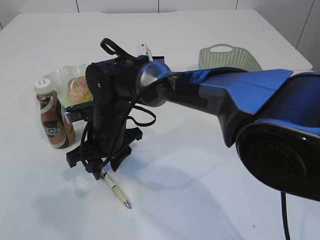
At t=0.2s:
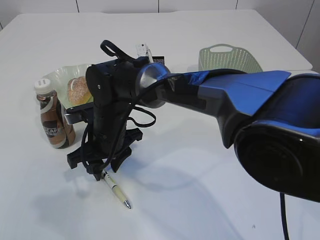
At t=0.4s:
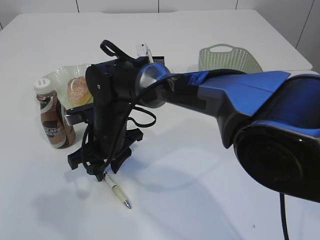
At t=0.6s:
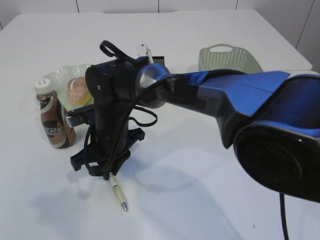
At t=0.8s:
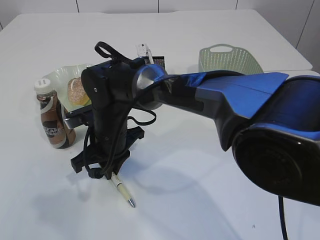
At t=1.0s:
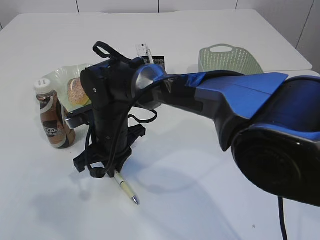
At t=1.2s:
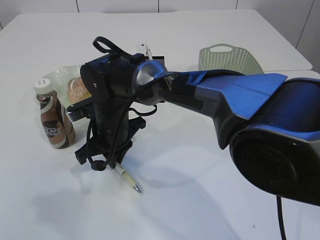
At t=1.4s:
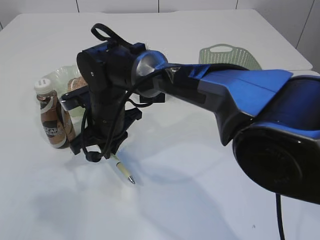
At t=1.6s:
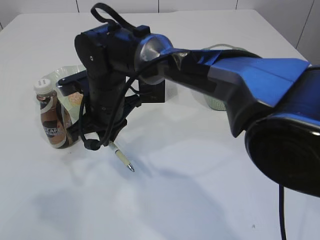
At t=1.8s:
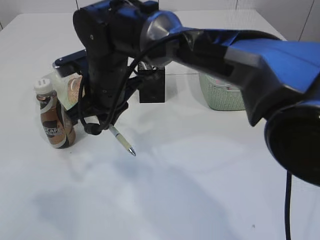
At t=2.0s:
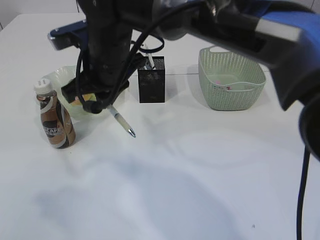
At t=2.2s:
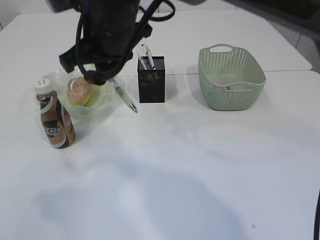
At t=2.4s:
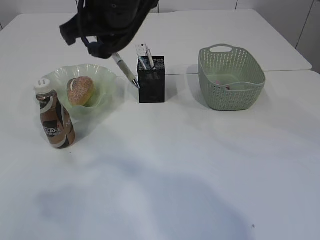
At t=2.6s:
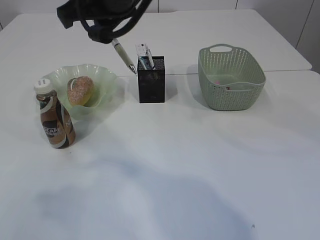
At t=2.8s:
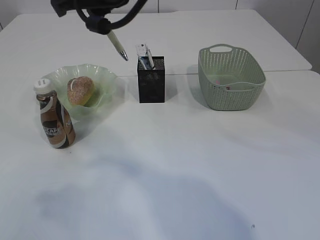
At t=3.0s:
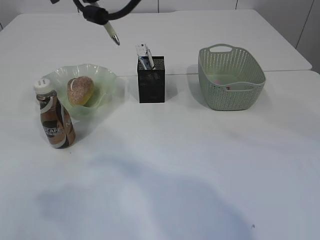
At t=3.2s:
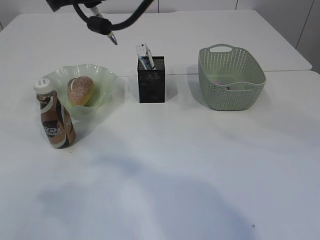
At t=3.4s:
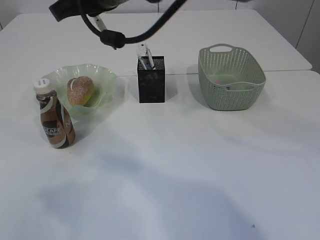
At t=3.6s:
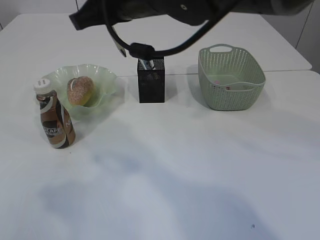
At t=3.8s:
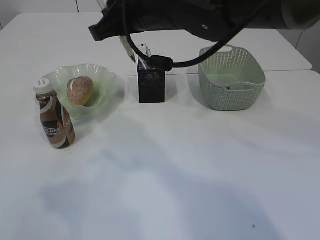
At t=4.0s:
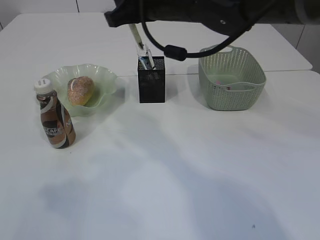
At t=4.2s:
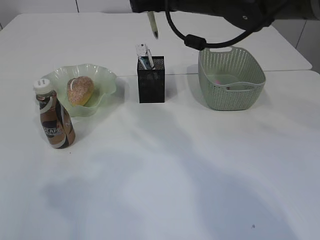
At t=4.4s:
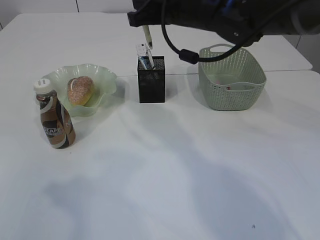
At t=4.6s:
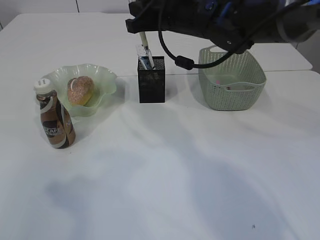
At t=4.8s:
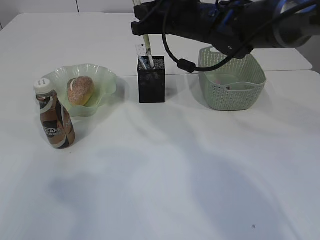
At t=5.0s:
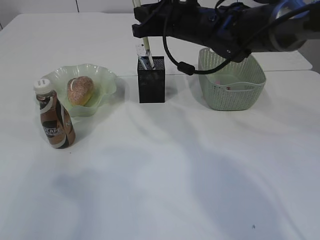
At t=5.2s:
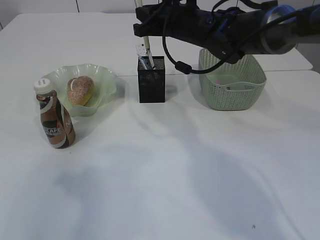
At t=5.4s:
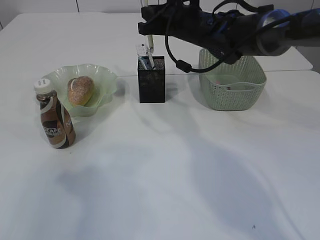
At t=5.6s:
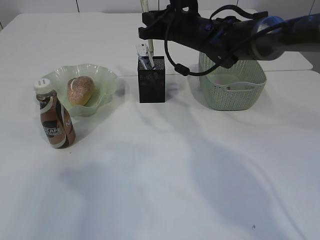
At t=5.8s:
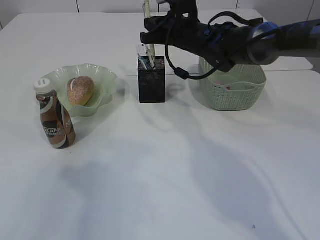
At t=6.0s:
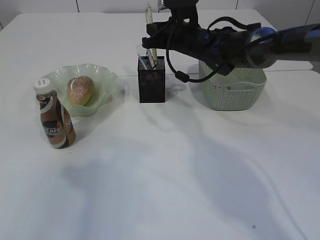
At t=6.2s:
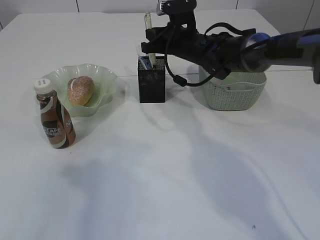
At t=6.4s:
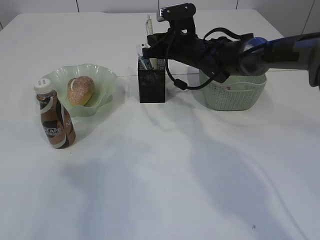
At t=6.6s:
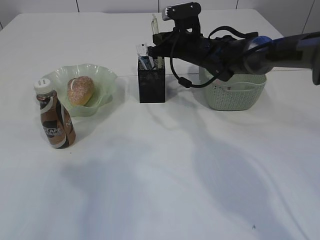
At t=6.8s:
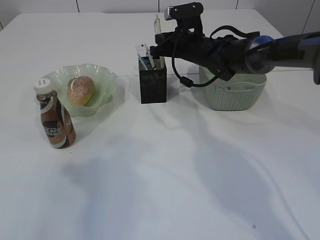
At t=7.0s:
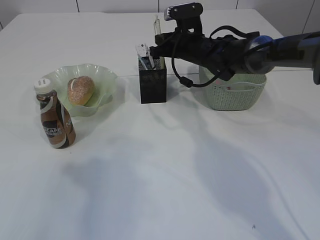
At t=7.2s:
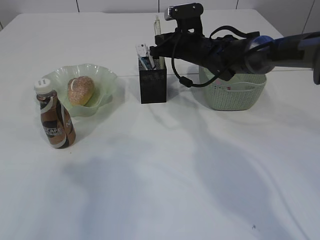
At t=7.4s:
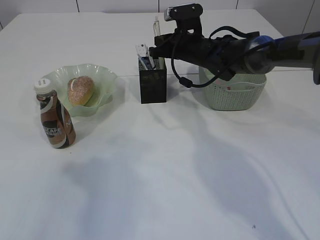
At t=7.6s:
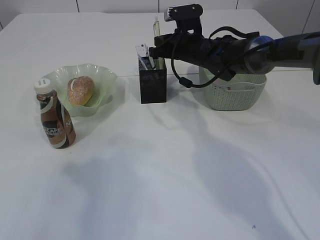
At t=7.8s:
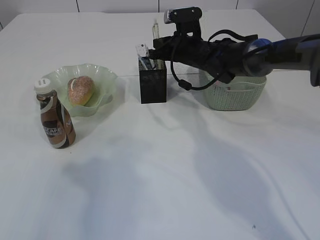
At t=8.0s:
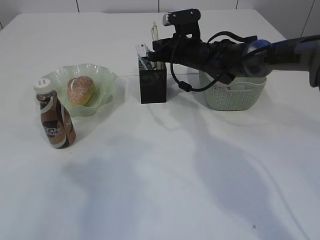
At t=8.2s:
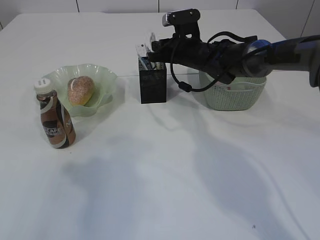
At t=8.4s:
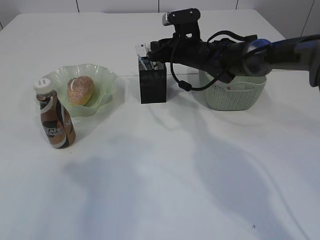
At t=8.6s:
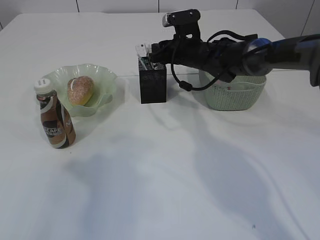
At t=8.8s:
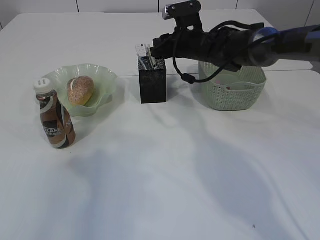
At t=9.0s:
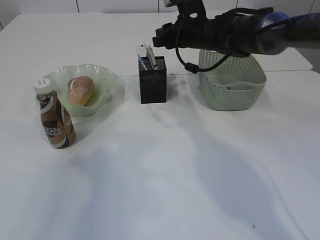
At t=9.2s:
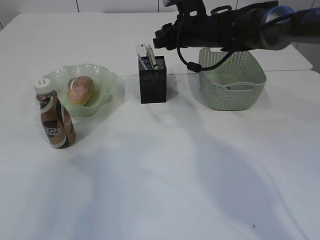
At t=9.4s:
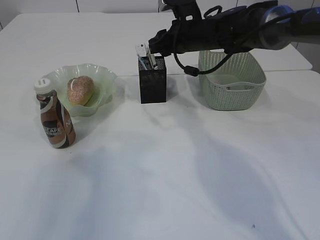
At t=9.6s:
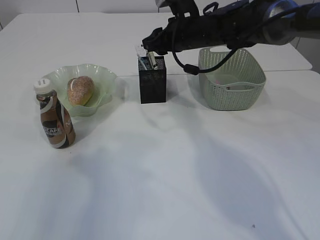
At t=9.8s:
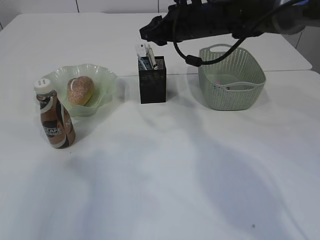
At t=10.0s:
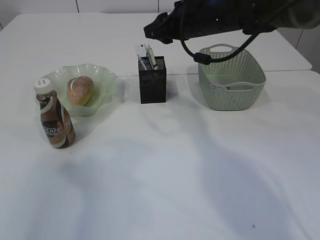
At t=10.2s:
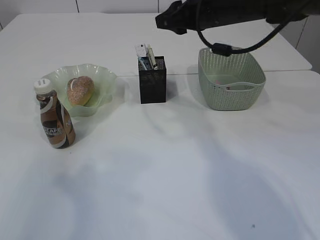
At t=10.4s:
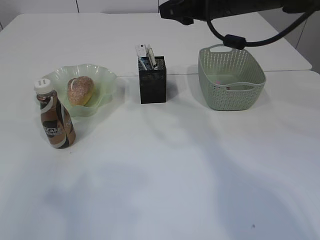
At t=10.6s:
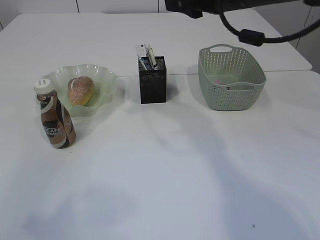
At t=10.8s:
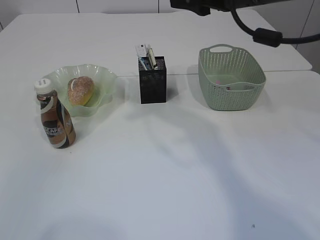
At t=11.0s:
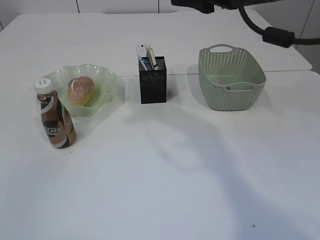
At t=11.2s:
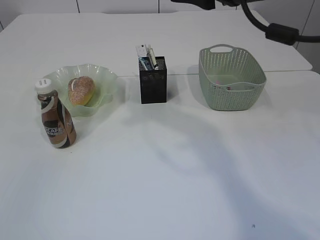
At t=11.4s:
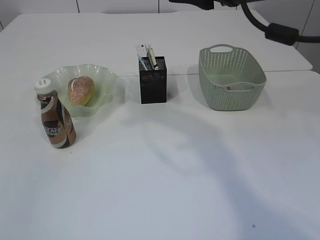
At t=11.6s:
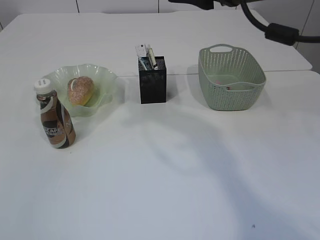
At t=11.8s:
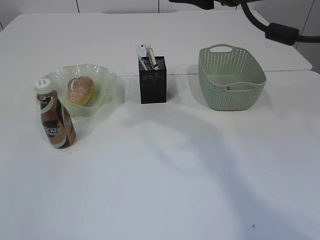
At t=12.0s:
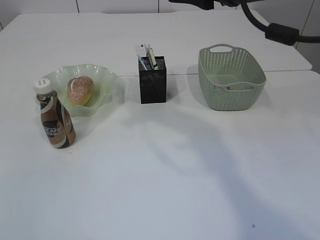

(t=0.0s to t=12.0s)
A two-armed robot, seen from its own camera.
Step, t=2.0s - t=9.8s: Place the pen into the pen holder.
t=0.0s - t=1.6s: The right gripper closes up.
t=1.6s - t=3.0s: The right gripper travels upward by approximately 20 cm.
t=3.0s - t=4.4s: The right gripper moves to the right, downward and forward, roughly 15 cm.
t=4.4s - t=6.0s: The right gripper travels downward and forward by about 15 cm.
t=6.0s - t=7.6s: The grippers move only a little.
t=7.6s - t=9.0s: The right gripper opens its fingers.
t=9.0s - t=10.4s: The right gripper goes approximately 15 cm upward and backward; the left gripper is displaced backward by some 10 cm.
t=10.4s - t=12.0s: The left gripper moves backward and downward, some 15 cm. Meanwhile the right gripper is displaced backward by some 10 cm.

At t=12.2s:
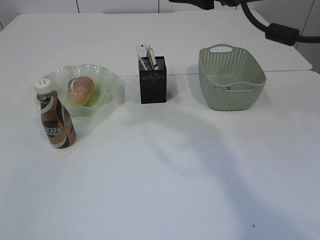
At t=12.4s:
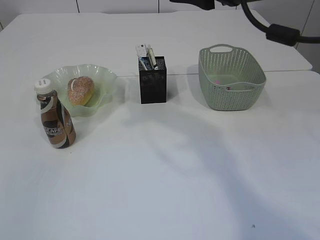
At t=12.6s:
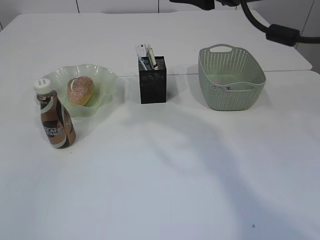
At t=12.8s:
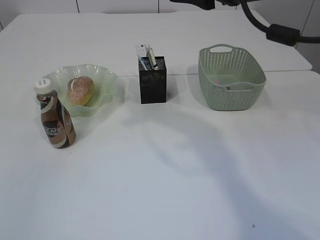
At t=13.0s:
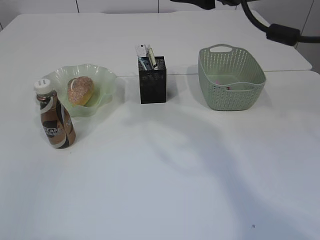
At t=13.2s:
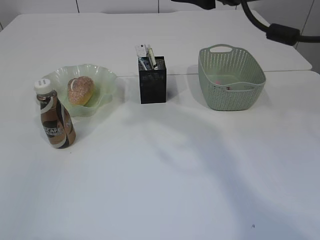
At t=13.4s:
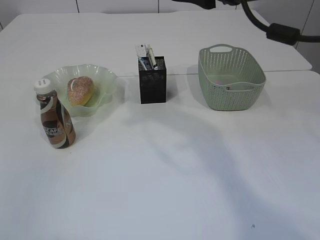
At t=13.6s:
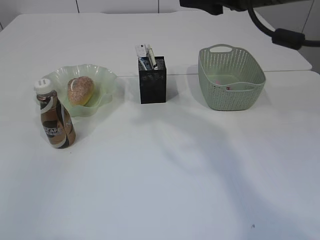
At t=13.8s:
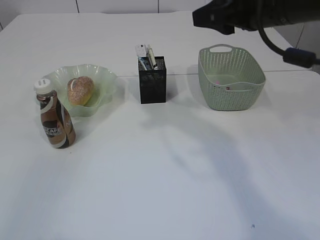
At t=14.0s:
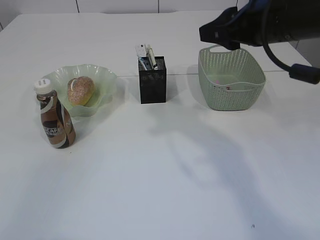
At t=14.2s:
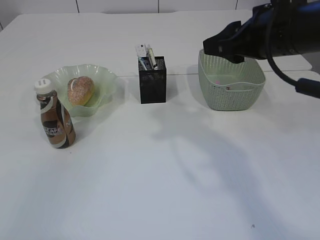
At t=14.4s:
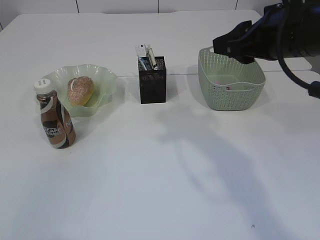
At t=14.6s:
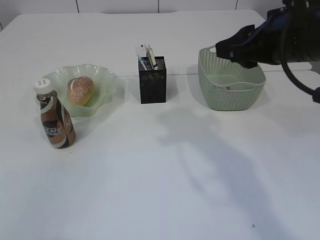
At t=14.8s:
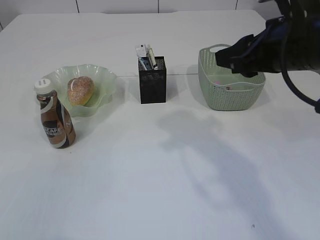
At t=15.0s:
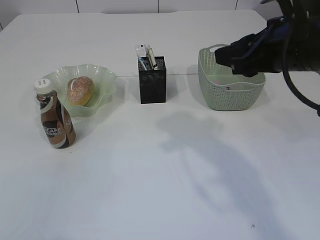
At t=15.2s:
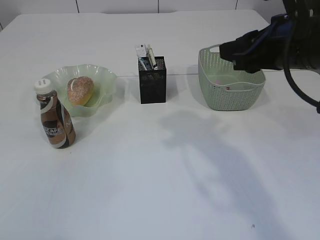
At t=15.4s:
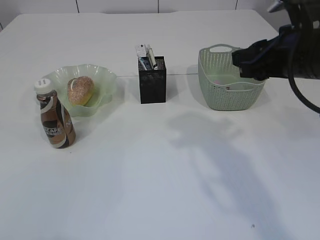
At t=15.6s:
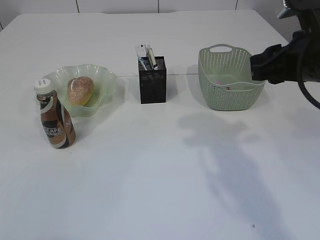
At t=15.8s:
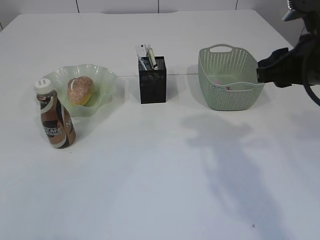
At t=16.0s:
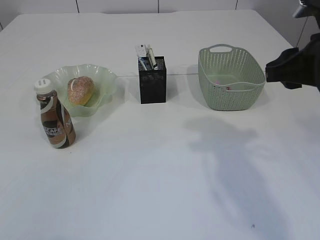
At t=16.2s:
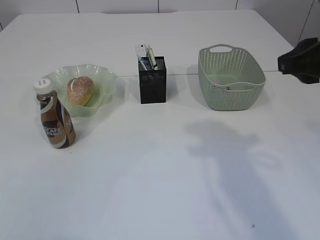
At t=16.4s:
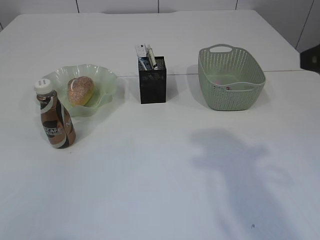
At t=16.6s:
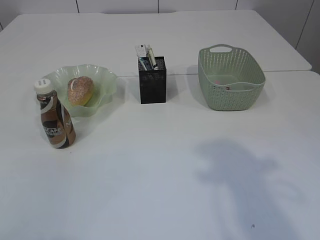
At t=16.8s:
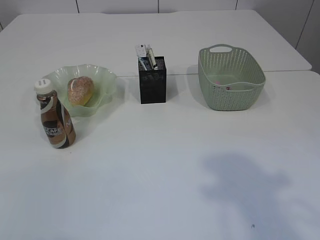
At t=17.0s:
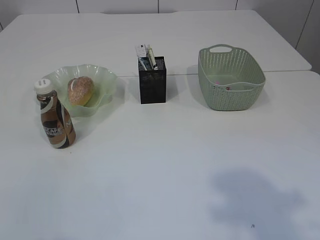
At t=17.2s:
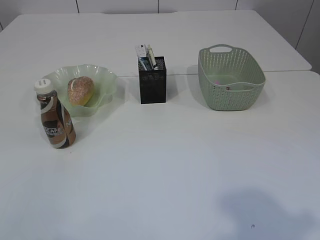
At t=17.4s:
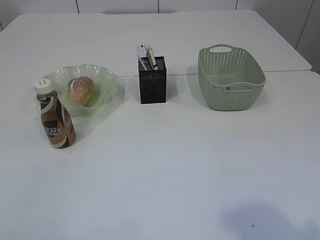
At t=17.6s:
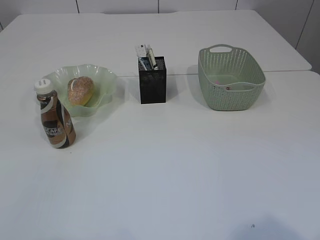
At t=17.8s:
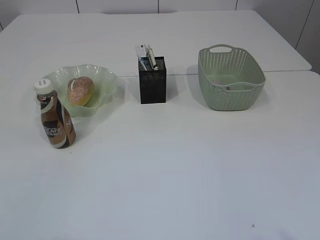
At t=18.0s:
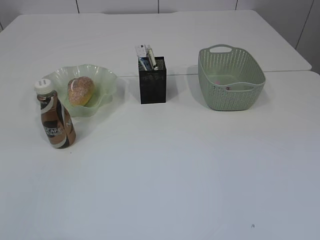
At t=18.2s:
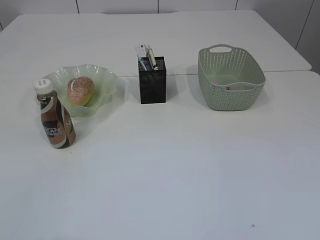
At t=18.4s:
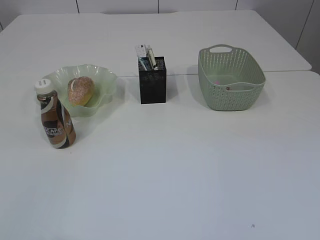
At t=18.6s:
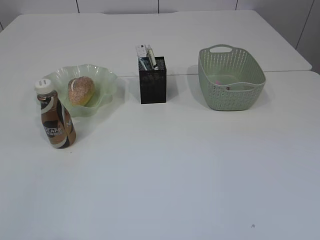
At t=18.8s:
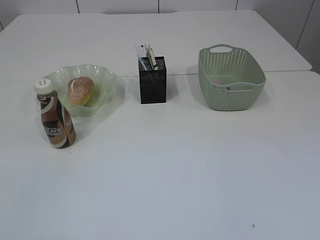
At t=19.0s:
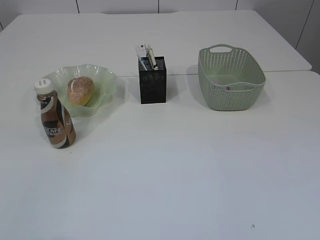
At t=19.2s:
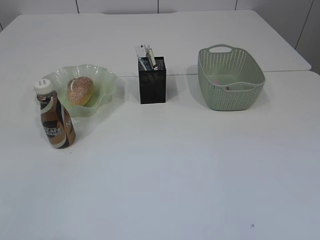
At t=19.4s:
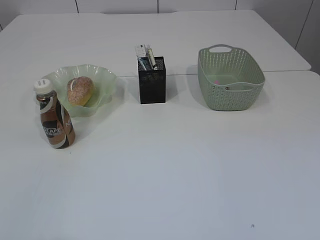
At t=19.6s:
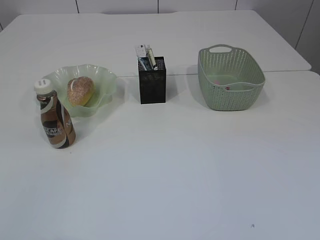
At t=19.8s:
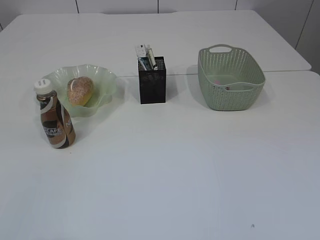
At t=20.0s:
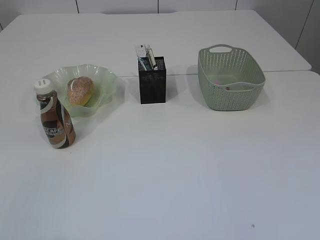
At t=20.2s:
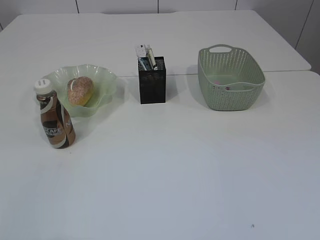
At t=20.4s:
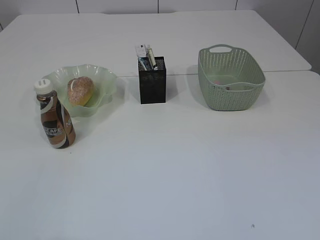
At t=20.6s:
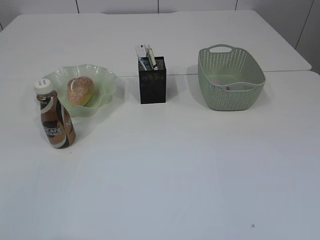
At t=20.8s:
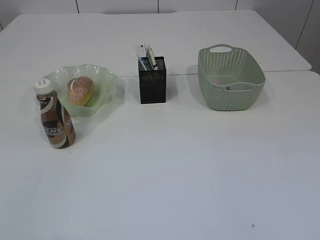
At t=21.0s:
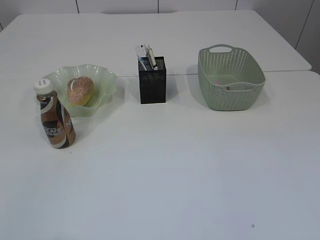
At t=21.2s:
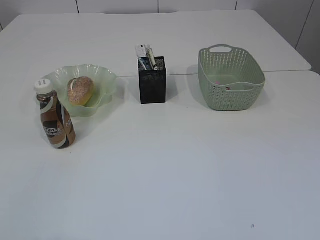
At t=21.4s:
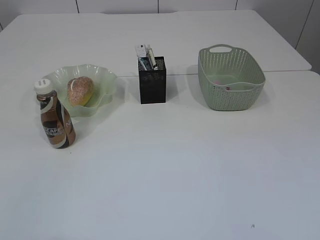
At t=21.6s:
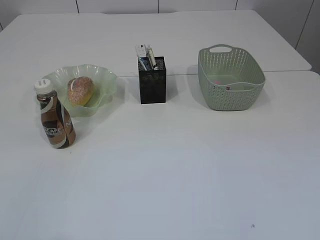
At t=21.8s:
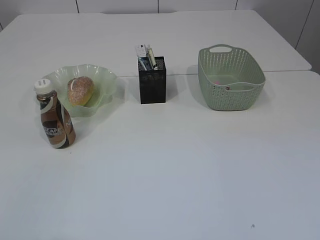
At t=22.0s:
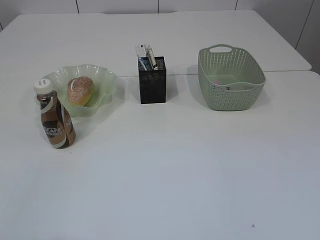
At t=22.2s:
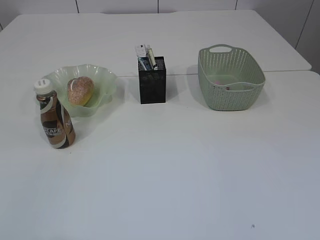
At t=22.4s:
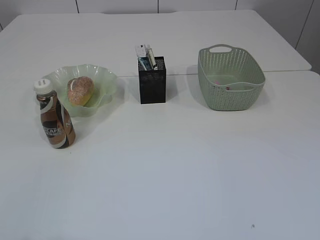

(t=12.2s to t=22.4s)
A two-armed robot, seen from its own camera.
t=12.2s - t=13.6s: There are only small adjustments of the grippers.
t=13.6s - t=15.2s: The right gripper shifts about 10 cm downward and backward.
t=15.2s - t=16.6s: The right gripper goes some 10 cm backward.
t=16.6s - t=18.0s: The right gripper moves backward, approximately 20 cm.
